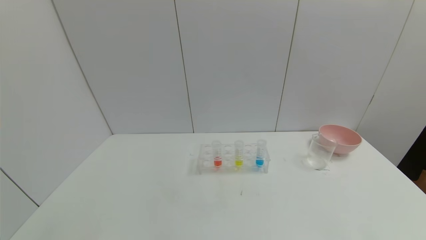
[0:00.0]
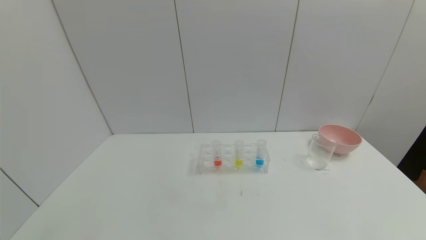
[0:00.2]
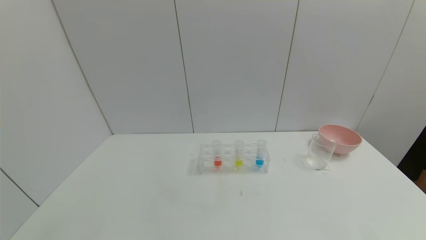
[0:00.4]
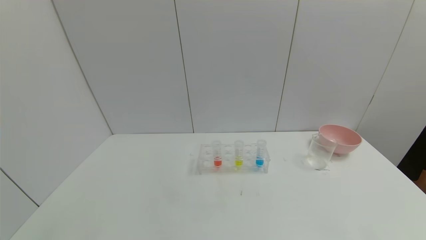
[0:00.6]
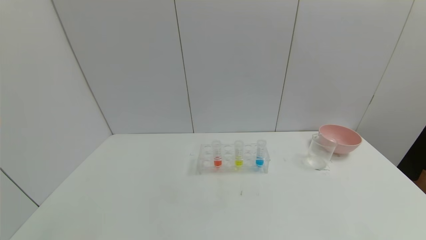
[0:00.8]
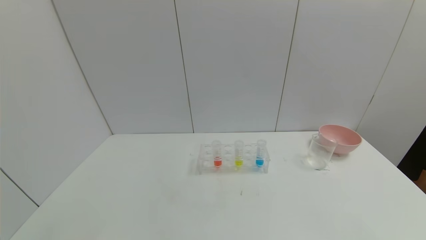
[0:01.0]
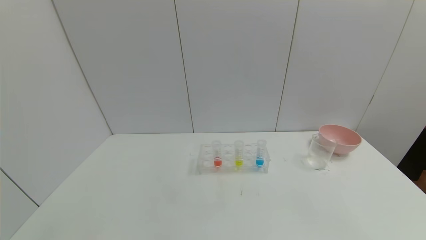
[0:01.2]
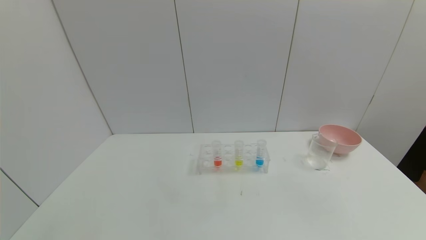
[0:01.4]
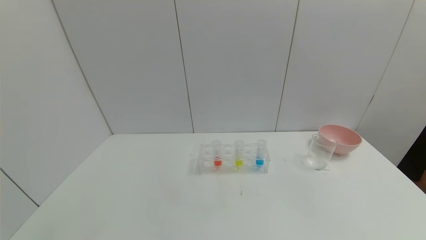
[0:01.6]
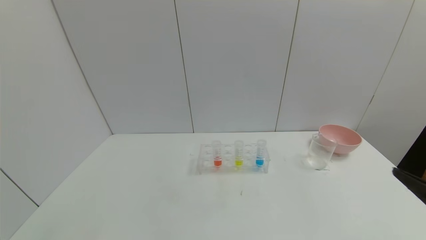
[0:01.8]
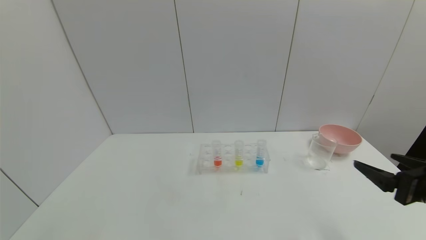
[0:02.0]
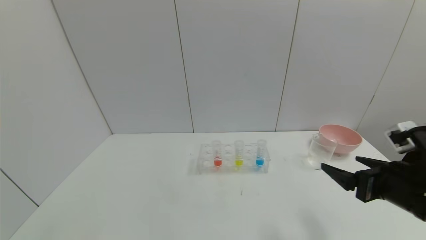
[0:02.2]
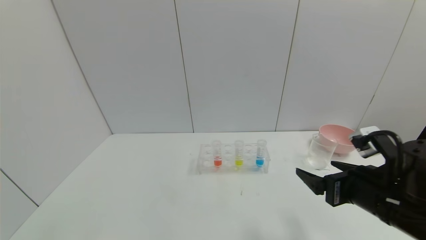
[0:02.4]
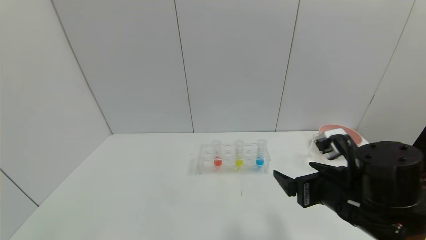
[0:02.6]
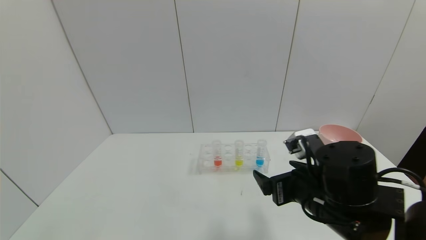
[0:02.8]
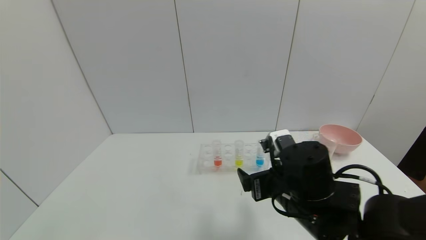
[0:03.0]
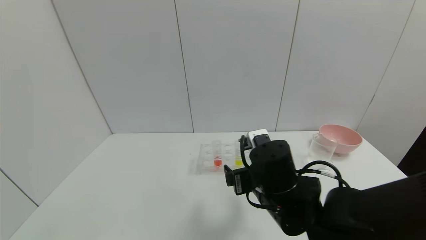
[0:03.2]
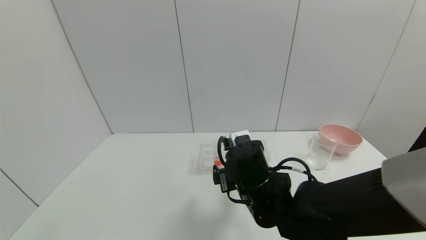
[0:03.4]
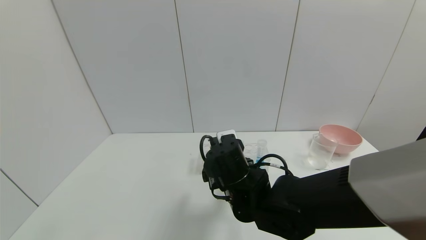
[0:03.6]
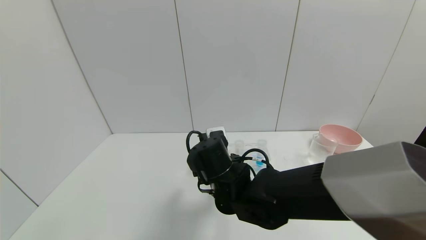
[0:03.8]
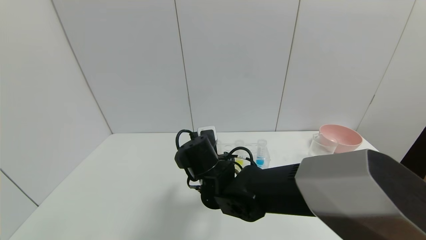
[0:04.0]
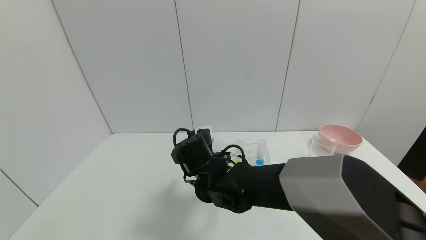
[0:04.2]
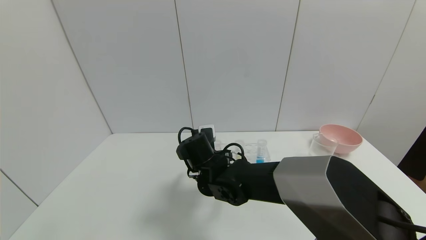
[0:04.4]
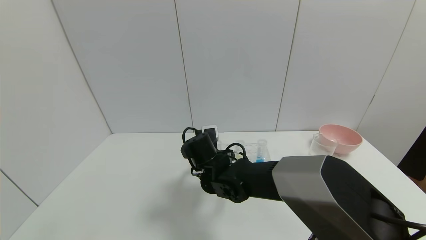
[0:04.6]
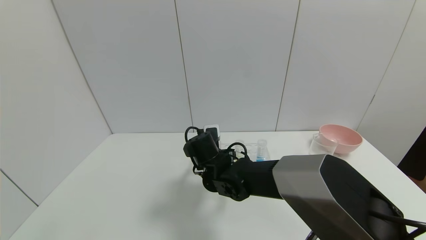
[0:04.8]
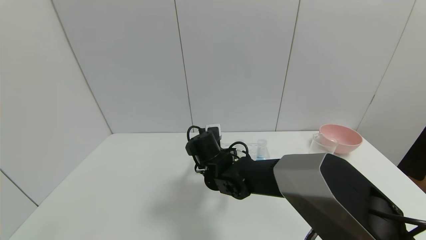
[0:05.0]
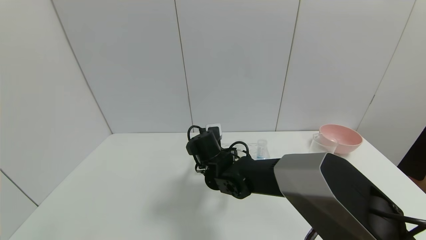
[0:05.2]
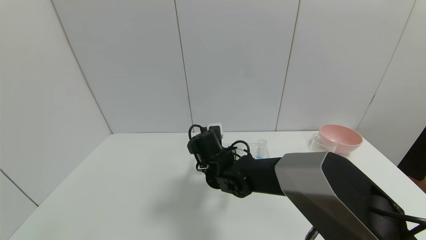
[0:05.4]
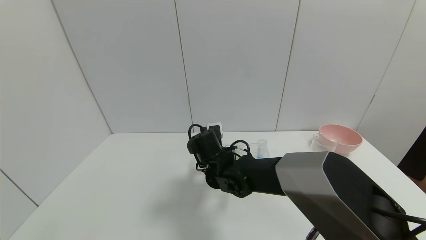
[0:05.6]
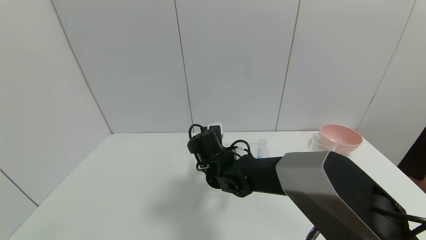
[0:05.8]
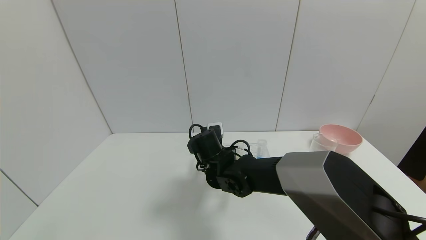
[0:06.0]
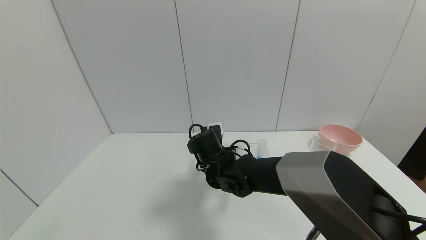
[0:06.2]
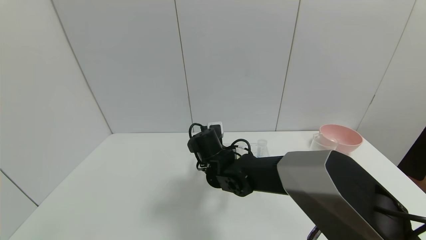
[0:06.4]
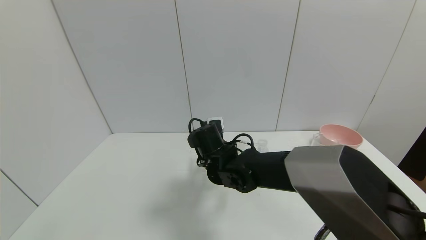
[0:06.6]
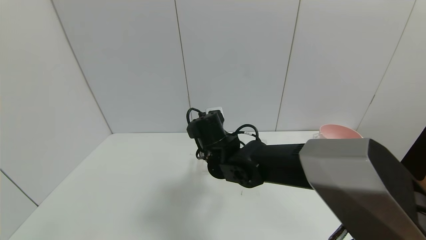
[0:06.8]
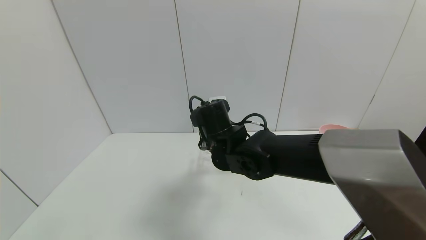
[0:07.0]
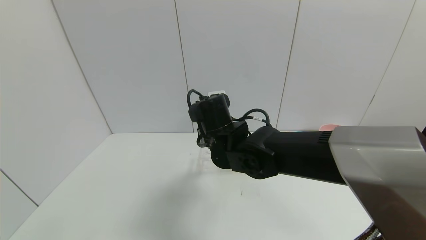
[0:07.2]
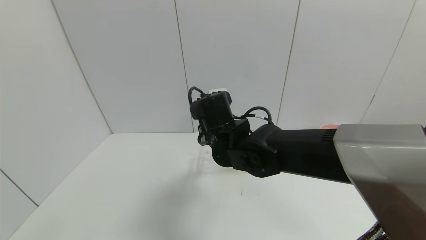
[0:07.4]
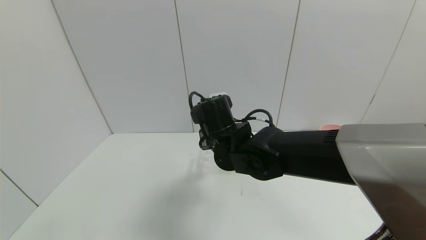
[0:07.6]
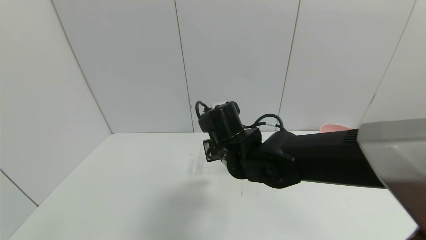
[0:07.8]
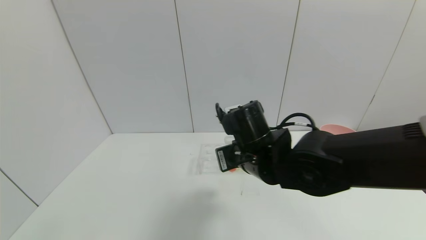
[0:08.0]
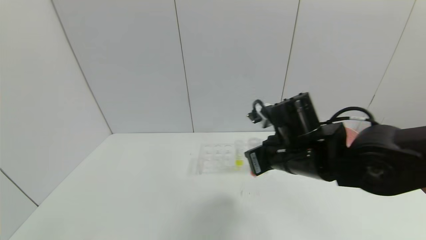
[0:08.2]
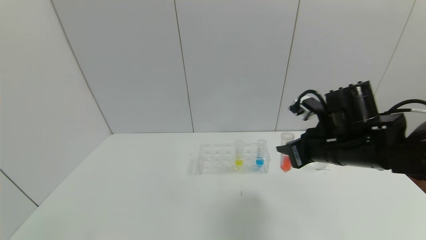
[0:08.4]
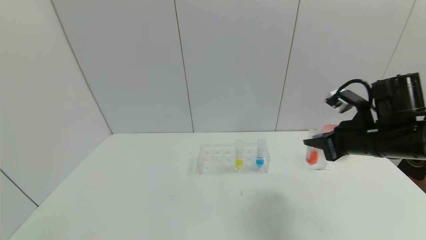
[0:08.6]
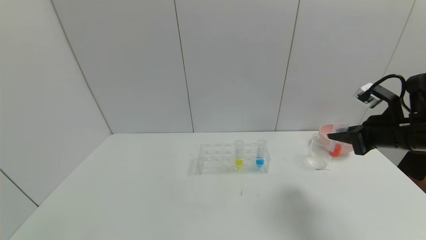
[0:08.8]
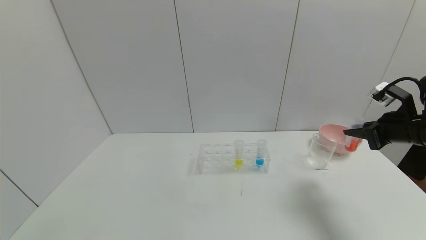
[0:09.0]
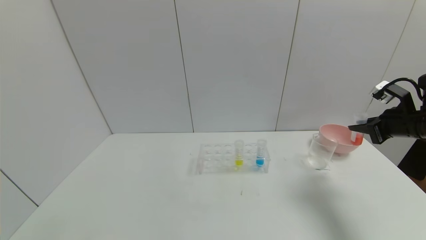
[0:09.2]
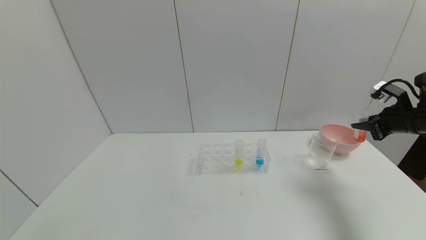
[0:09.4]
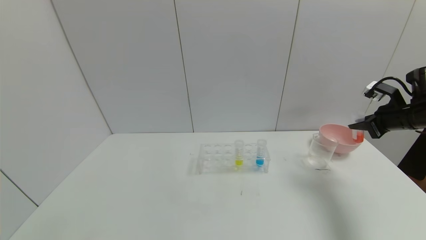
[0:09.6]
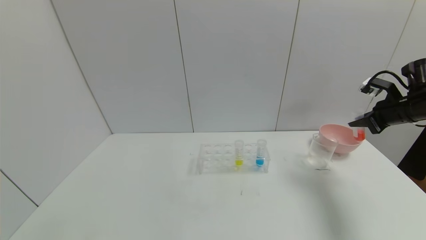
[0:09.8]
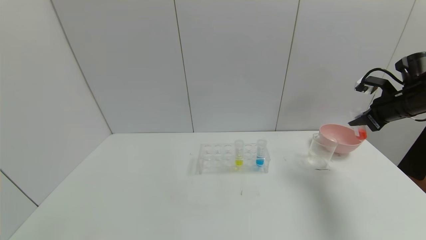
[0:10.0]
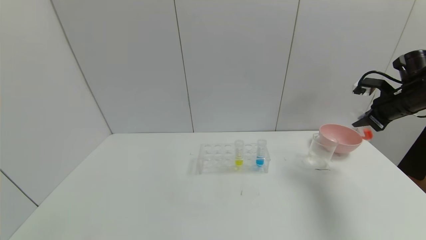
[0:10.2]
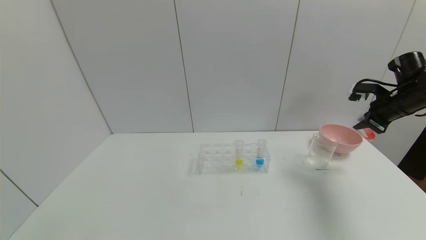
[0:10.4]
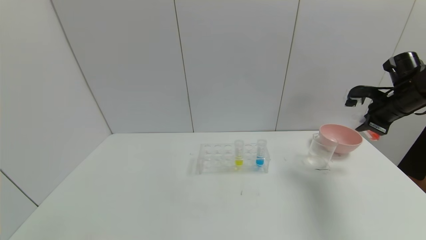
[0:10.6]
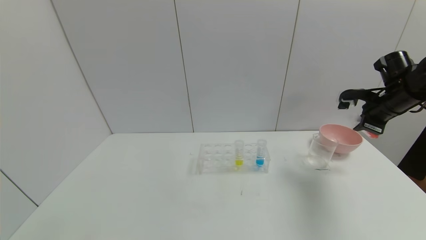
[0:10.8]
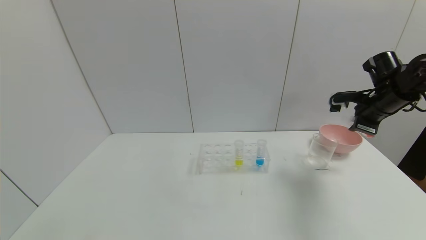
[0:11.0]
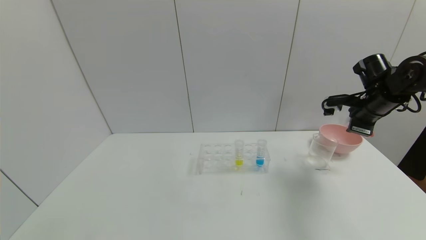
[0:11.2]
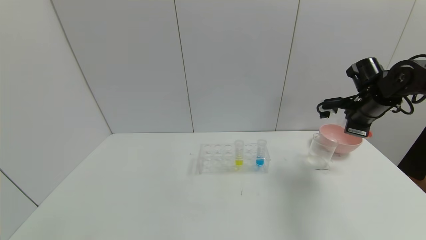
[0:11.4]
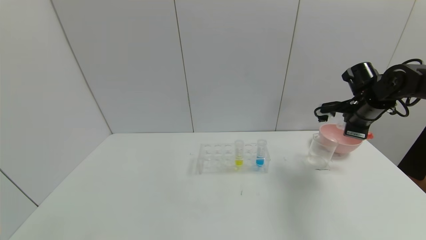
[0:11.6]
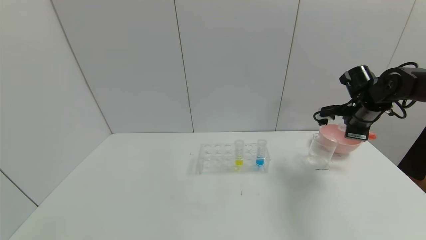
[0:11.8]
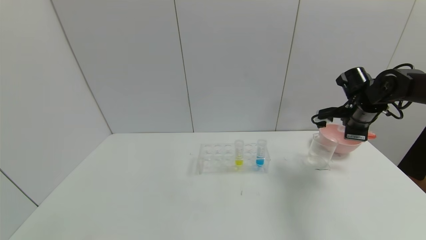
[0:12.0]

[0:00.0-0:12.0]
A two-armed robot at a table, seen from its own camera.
Task of the whole recording: pick up the test tube with yellow pigment and the test tube with red pigment by grippers and pour them into the beaker.
Step, 0:00.0 to 0:06.2: Grasp the red reagent with the right gripper.
0:01.6 to 0:03.0: The right gripper moves to the left and forward, approximately 30 cm.
0:03.0 to 0:04.4: The right gripper moves to the left and forward, approximately 20 cm.
0:04.4 to 0:06.0: The right gripper closes.
0:06.0 to 0:07.6: The right gripper heads upward, covering roughly 10 cm.
0:07.6 to 0:09.0: The right gripper moves to the right, some 40 cm.
0:09.0 to 0:10.4: The right gripper travels forward by about 10 cm.
0:10.4 to 0:12.0: The right gripper travels to the left by roughly 5 cm.

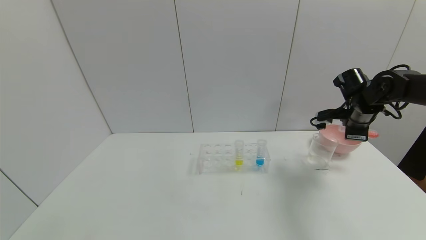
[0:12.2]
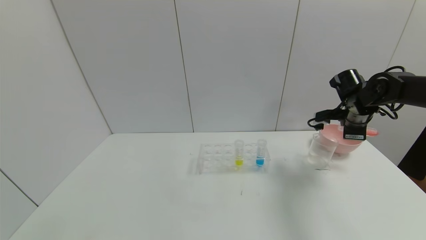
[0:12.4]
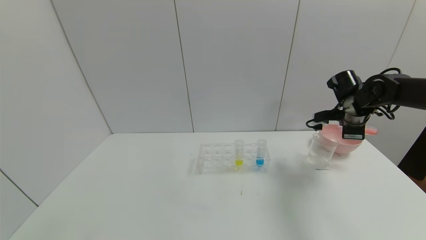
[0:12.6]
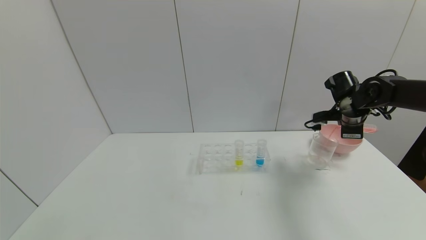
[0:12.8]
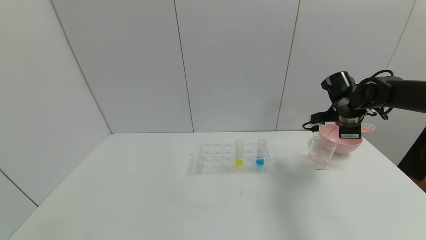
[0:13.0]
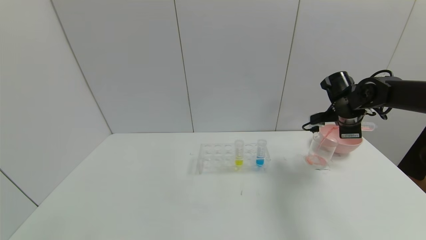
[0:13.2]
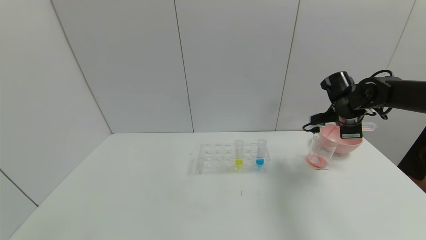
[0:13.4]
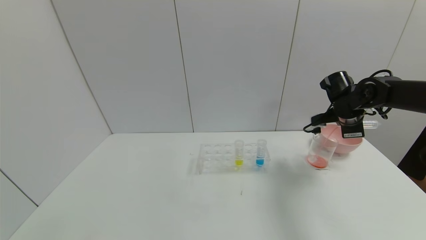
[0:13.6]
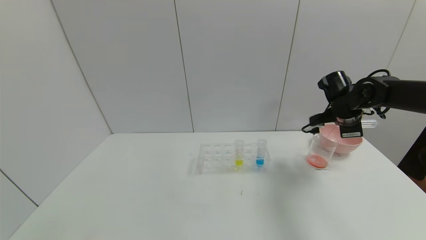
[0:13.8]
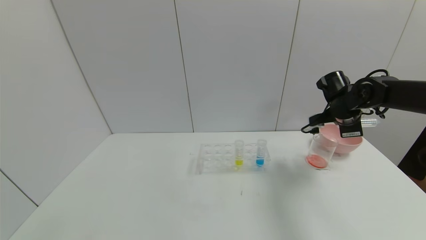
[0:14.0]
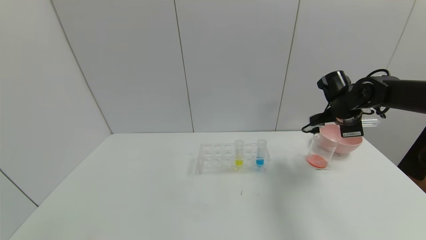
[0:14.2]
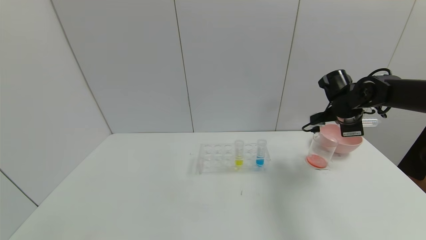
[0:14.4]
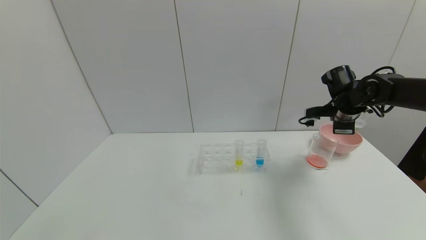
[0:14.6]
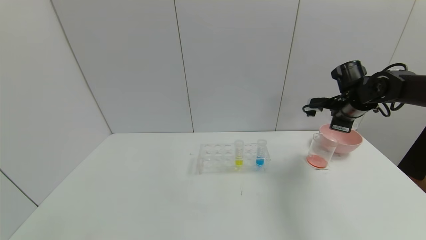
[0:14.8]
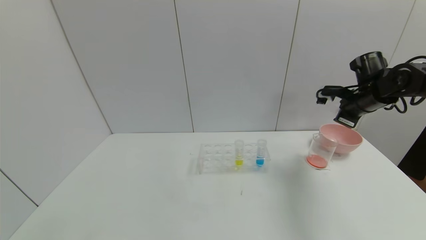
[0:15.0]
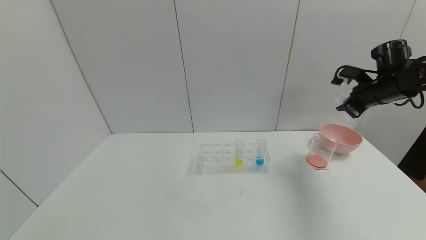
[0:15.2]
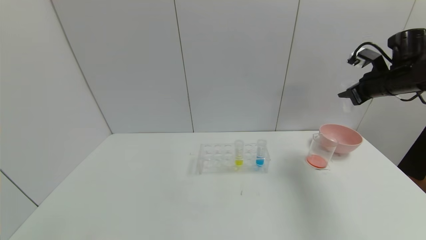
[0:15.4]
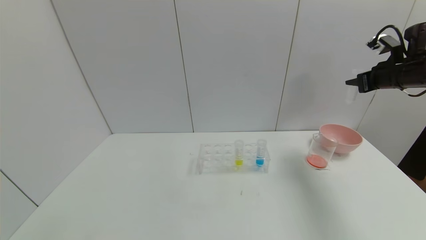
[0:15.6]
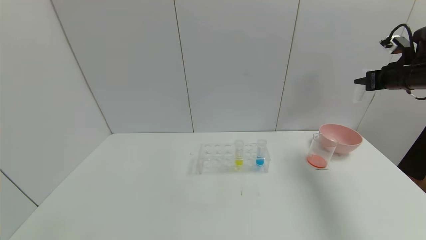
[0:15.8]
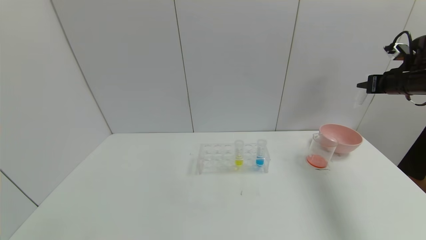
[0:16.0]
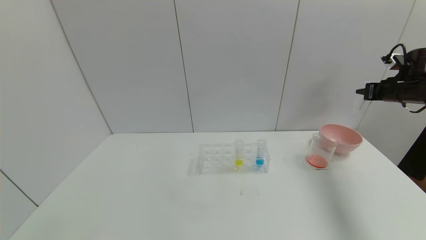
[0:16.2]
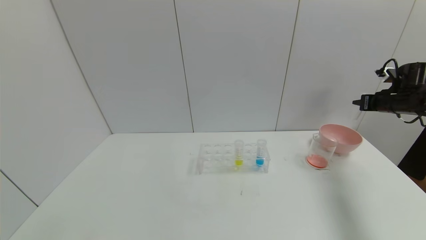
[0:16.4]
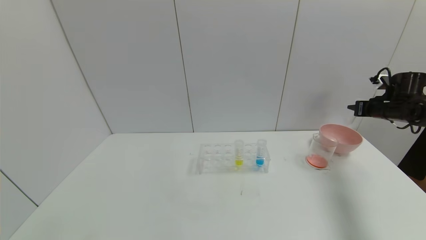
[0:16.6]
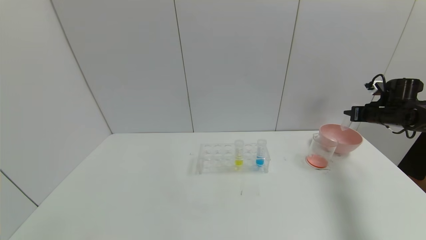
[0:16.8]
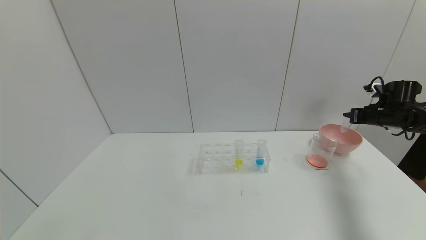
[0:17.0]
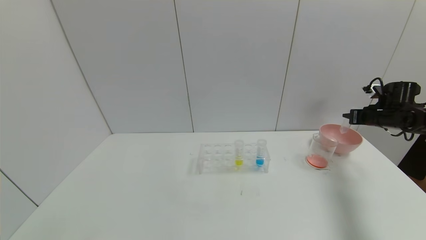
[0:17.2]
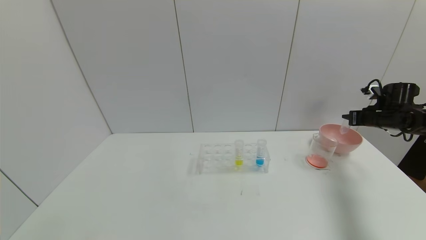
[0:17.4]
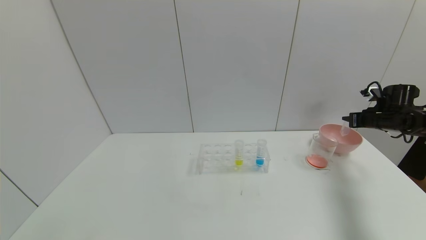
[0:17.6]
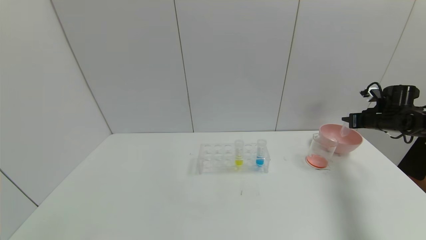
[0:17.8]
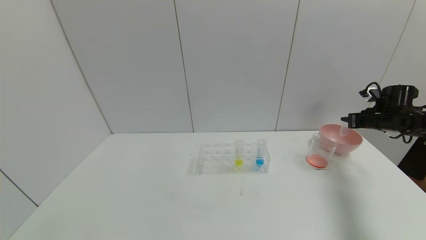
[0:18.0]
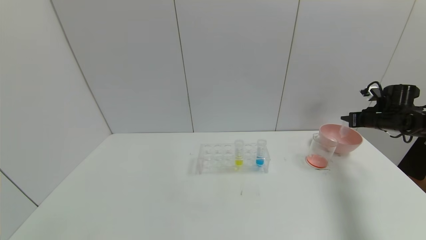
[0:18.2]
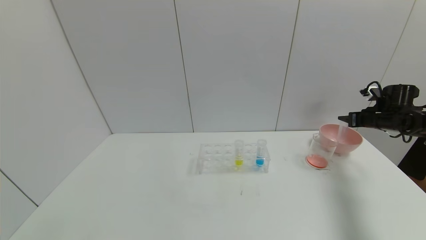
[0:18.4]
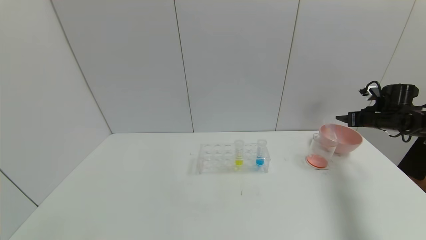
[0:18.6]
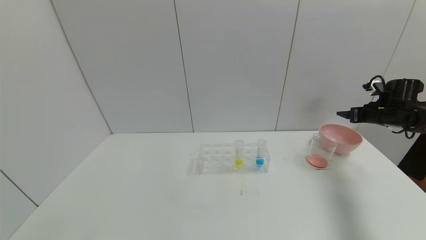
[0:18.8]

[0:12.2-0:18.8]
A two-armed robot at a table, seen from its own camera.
Task of the whole recording: pick up the test tube with yellow pigment and the test tube with red pigment by grippers and pour them into the beaker.
Step, 0:14.2 to 0:18.6: Place the test tube into the pink bowl with the right gripper.
0:12.2 to 0:13.8: The grippers move only a little.
0:13.8 to 0:15.4: The right gripper moves upward and to the right, about 10 cm.
0:15.4 to 0:17.2: The right gripper heads downward and to the right, covering roughly 15 cm.
0:17.2 to 0:18.8: The right gripper opens.
